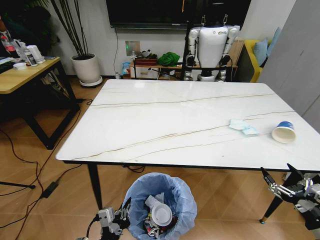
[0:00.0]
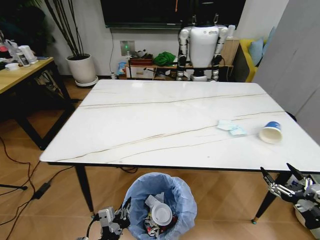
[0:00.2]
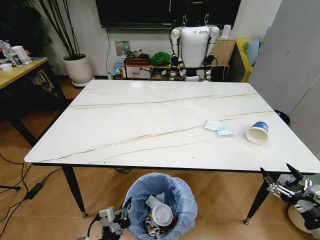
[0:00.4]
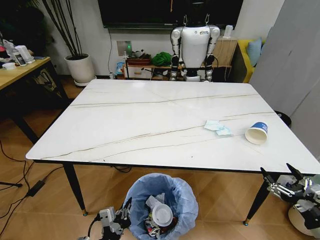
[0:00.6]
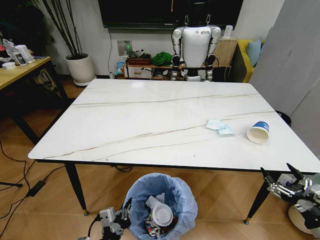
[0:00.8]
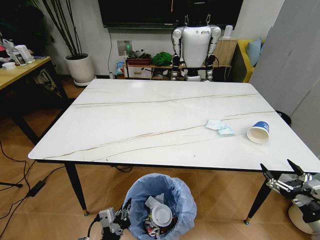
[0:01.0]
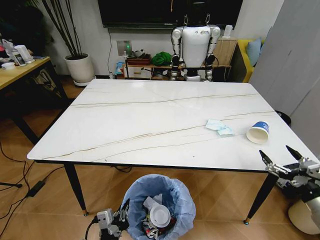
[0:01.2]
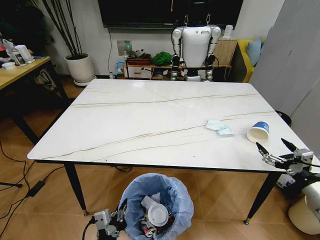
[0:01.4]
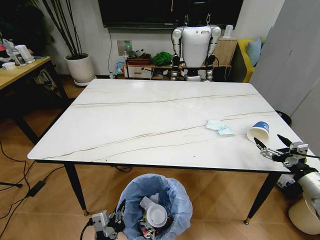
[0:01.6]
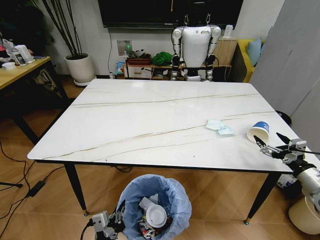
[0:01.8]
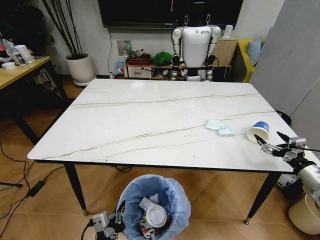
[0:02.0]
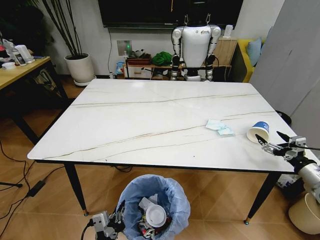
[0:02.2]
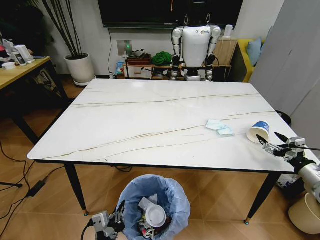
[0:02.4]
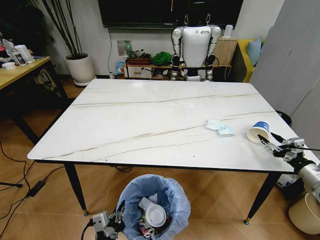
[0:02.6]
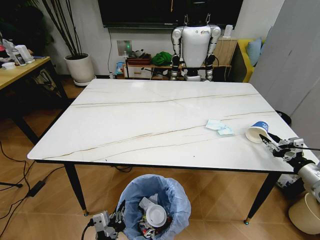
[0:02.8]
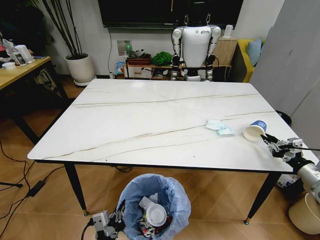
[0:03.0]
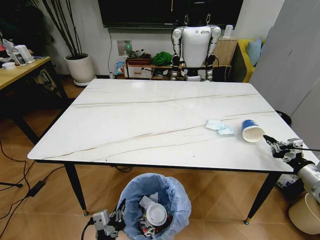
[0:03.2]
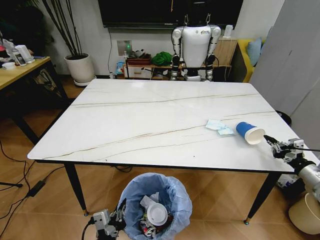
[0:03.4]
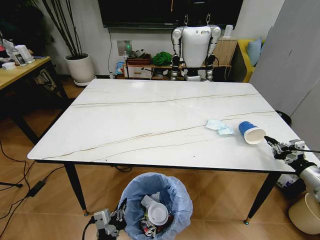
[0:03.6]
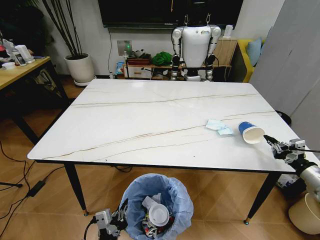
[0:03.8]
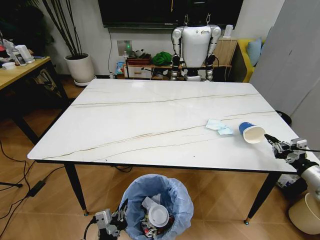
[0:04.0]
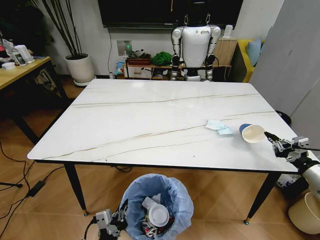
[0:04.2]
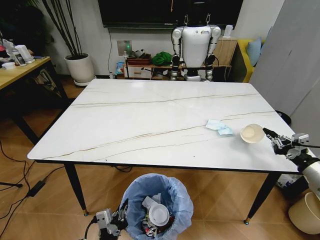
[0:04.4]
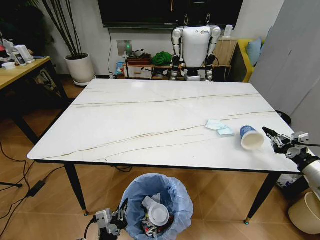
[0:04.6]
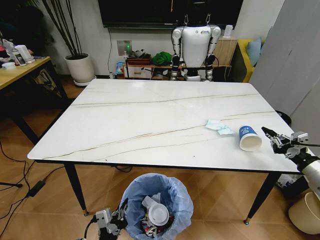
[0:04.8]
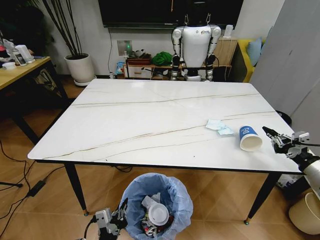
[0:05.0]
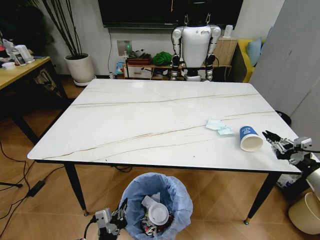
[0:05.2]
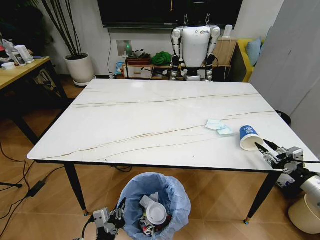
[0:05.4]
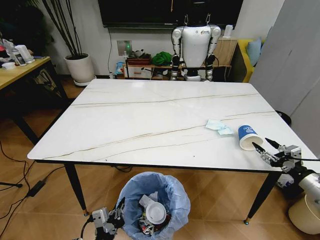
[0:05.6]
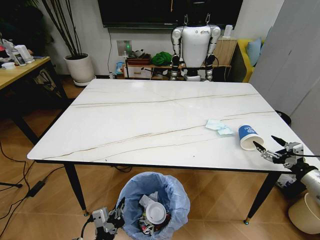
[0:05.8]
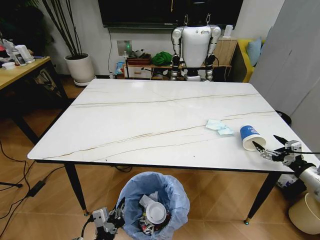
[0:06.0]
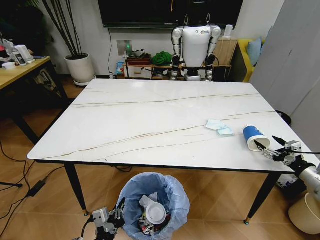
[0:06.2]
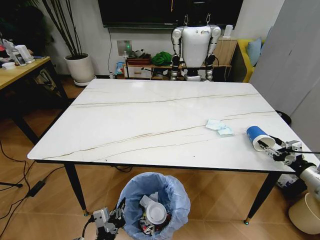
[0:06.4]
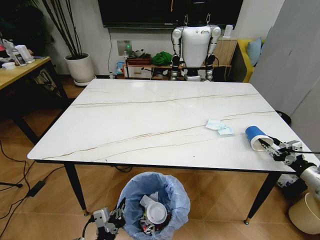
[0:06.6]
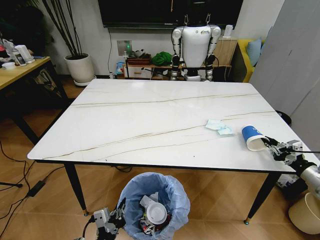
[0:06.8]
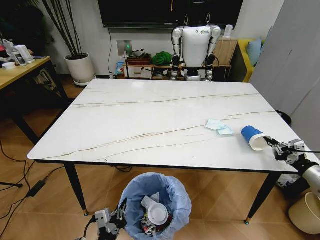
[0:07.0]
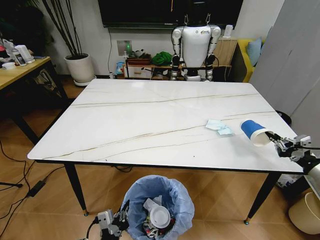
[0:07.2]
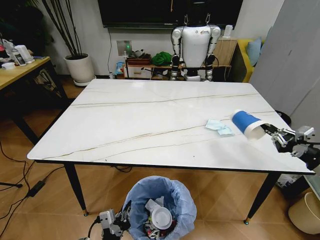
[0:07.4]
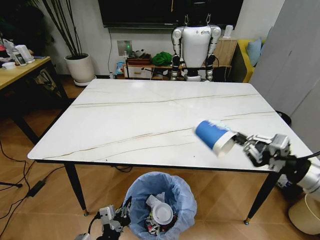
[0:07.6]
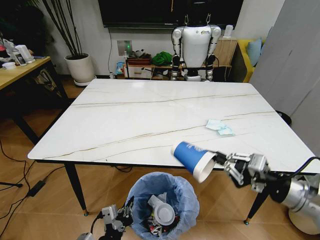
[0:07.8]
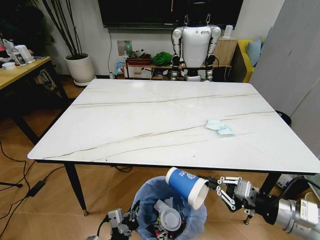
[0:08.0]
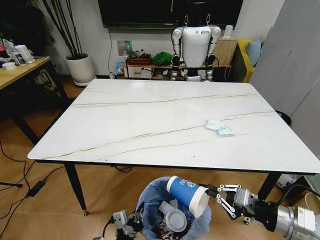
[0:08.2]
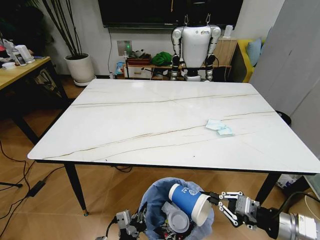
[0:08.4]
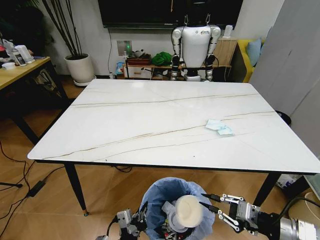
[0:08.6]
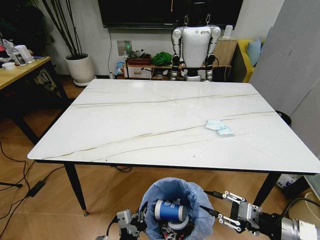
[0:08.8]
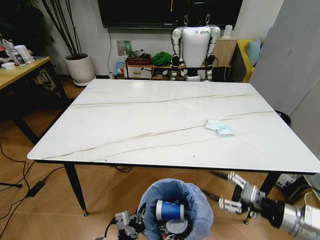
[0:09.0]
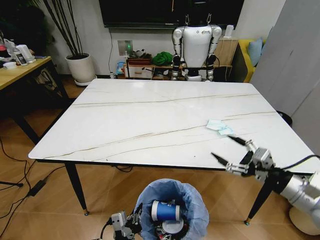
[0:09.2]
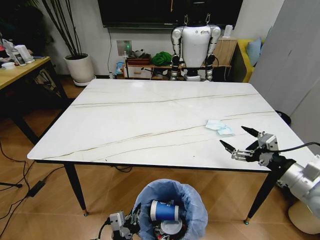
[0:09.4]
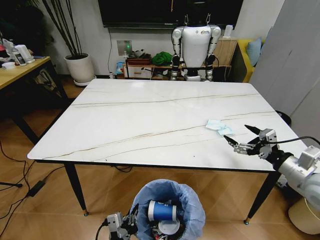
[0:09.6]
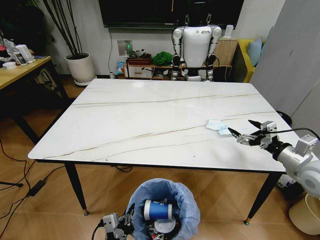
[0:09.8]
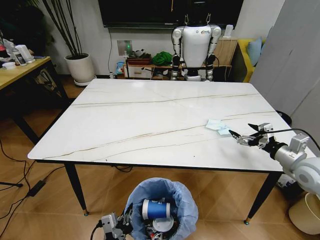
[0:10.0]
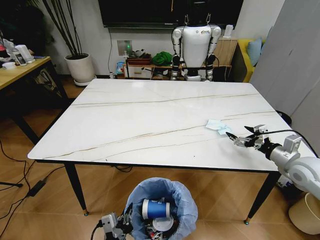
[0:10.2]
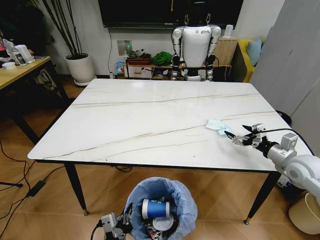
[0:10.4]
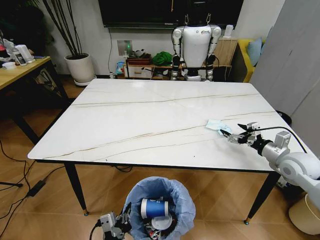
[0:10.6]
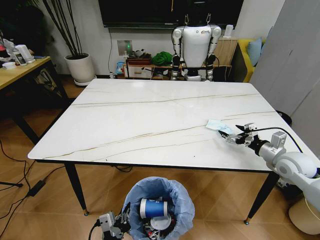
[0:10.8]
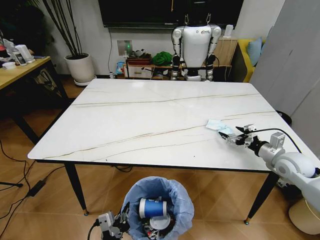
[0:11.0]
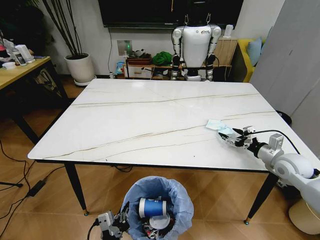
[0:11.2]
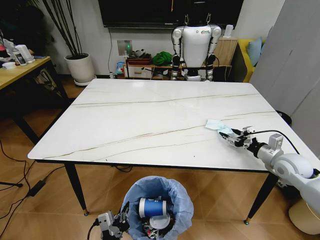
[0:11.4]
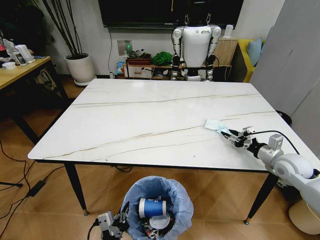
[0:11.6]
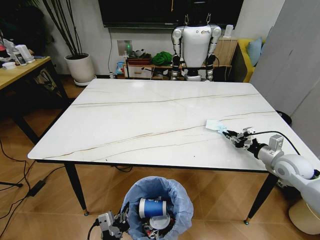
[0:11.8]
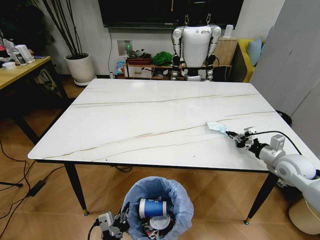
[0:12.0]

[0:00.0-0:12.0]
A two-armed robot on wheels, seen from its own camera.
Task of the whole recording: Pick up the trash bin and place the trash from the table into it.
0:00.0 to 0:01.6: The right gripper heads forward, covering some 15 cm.
0:01.6 to 0:03.0: The right gripper shifts by some 5 cm, and closes its fingers.
0:03.0 to 0:04.4: There are only small adjustments of the grippers.
0:04.4 to 0:06.0: The right gripper opens.
0:06.0 to 0:07.6: The right gripper is displaced upward and to the left by roughly 15 cm, and closes its fingers.
0:07.6 to 0:09.0: The right gripper travels downward and backward by some 10 cm, and opens up.
0:09.0 to 0:10.4: The right gripper is displaced forward and to the right by roughly 20 cm, and opens up.
0:10.4 to 0:12.0: The right gripper closes.

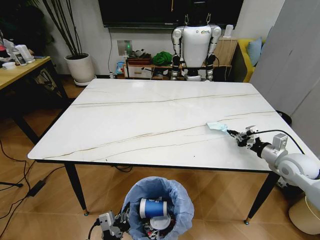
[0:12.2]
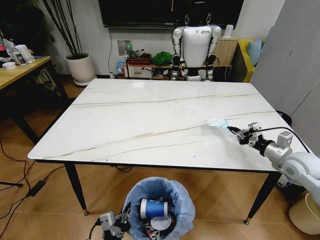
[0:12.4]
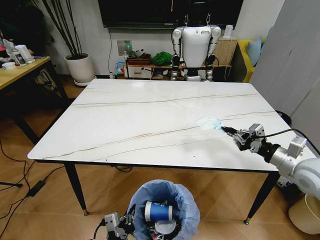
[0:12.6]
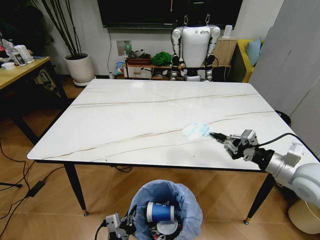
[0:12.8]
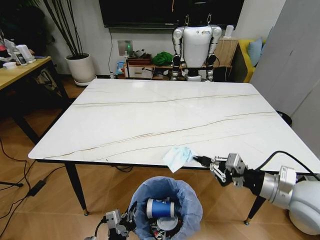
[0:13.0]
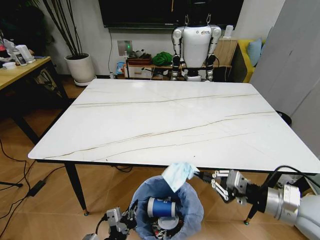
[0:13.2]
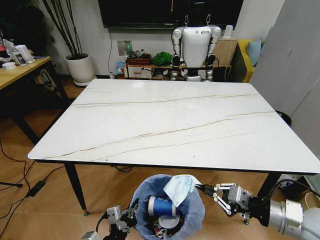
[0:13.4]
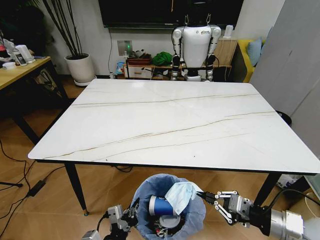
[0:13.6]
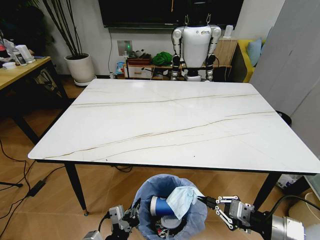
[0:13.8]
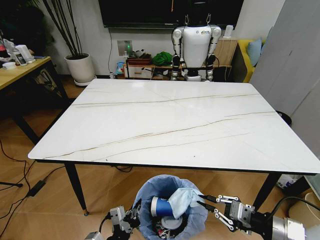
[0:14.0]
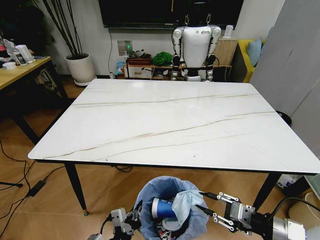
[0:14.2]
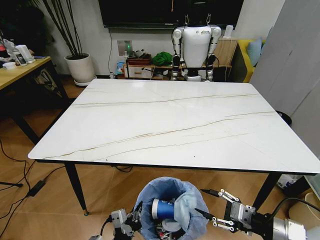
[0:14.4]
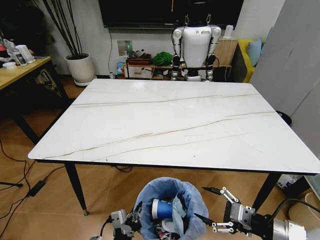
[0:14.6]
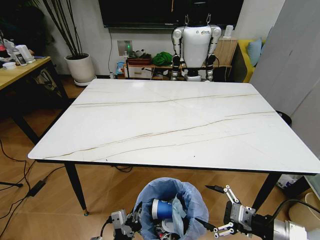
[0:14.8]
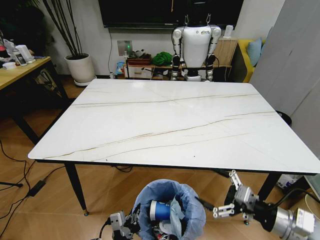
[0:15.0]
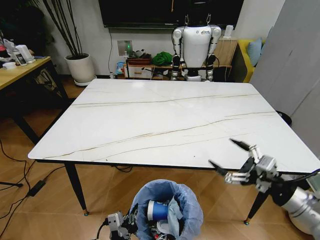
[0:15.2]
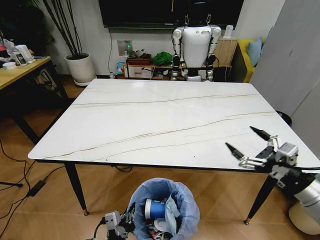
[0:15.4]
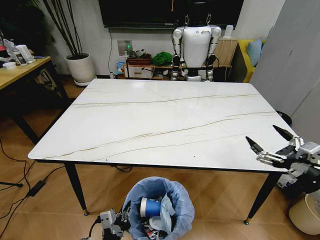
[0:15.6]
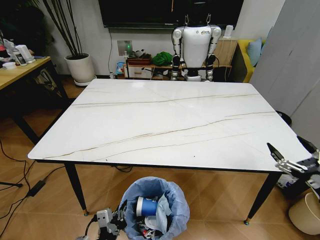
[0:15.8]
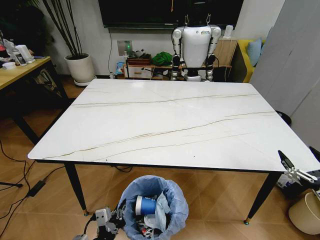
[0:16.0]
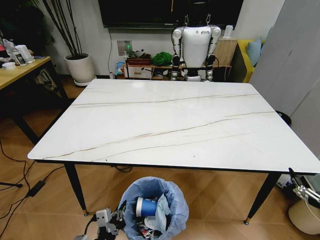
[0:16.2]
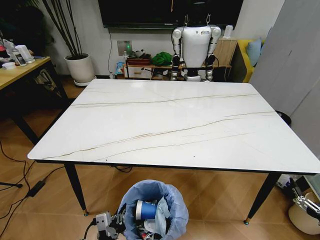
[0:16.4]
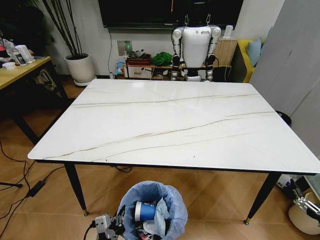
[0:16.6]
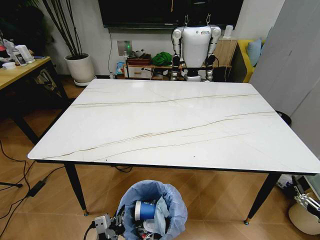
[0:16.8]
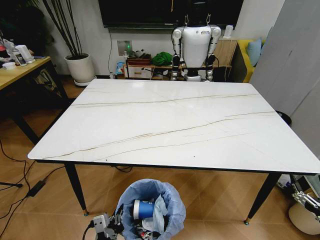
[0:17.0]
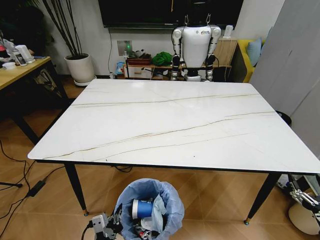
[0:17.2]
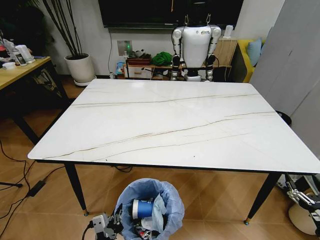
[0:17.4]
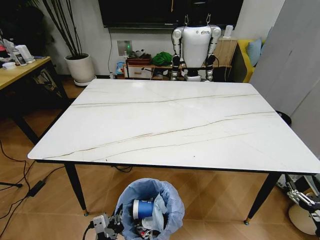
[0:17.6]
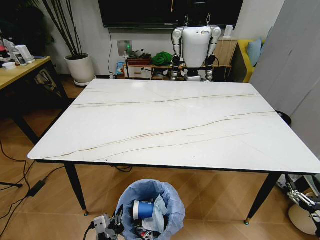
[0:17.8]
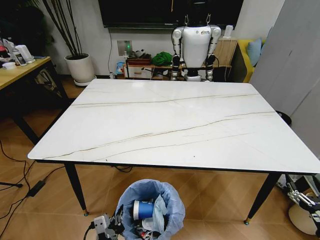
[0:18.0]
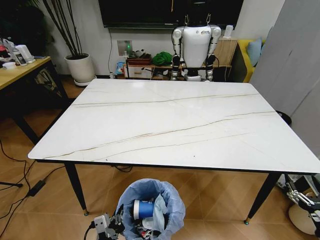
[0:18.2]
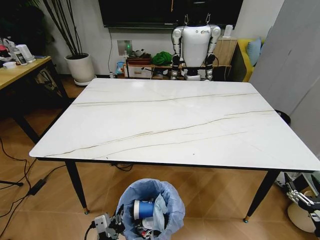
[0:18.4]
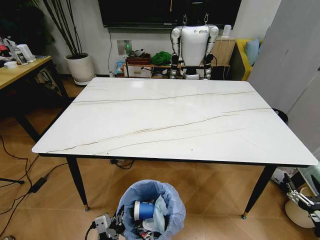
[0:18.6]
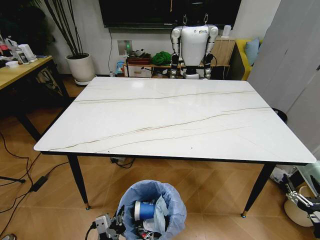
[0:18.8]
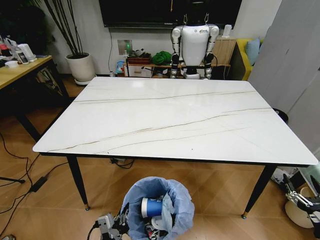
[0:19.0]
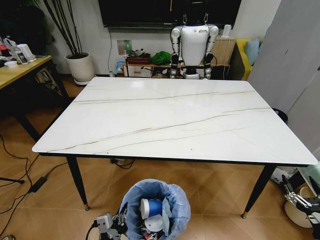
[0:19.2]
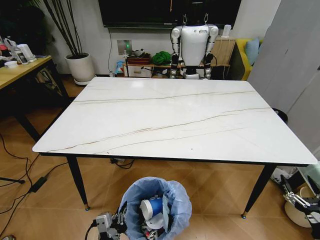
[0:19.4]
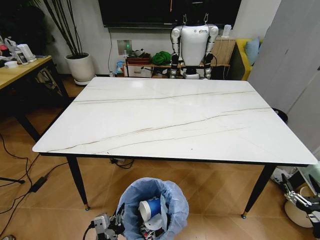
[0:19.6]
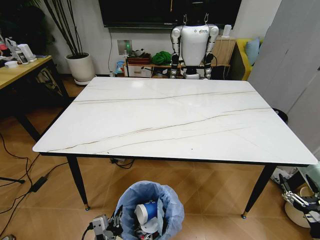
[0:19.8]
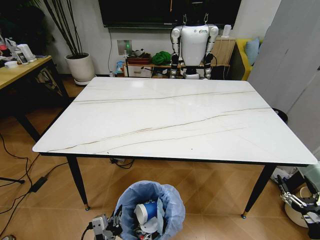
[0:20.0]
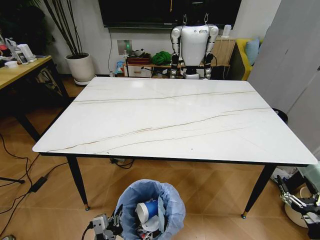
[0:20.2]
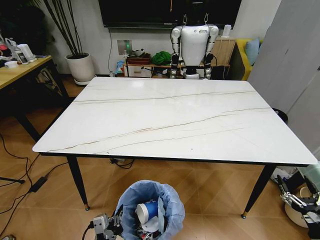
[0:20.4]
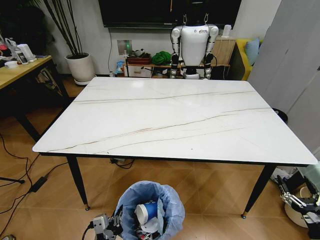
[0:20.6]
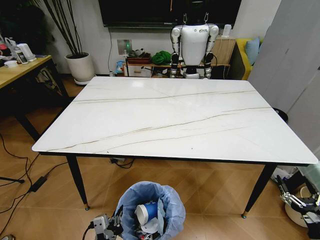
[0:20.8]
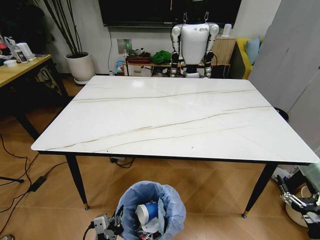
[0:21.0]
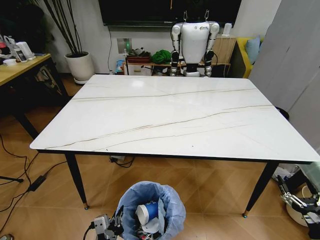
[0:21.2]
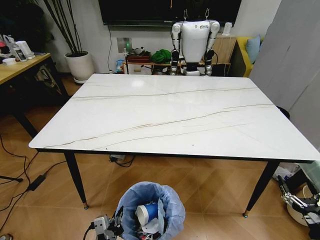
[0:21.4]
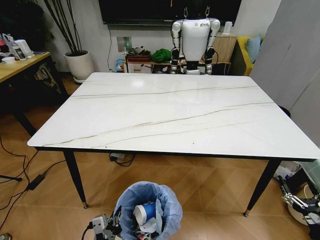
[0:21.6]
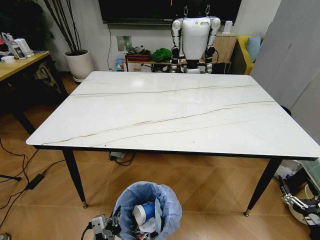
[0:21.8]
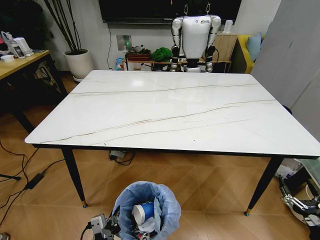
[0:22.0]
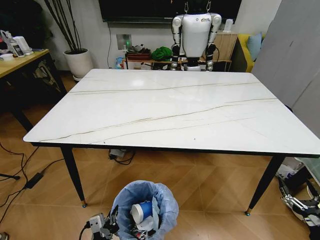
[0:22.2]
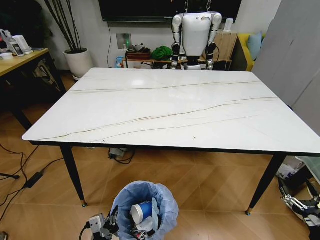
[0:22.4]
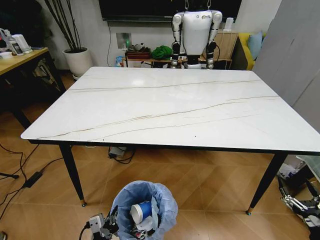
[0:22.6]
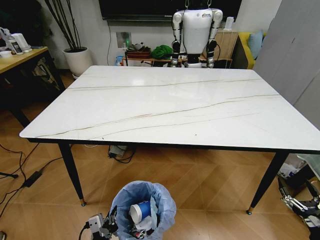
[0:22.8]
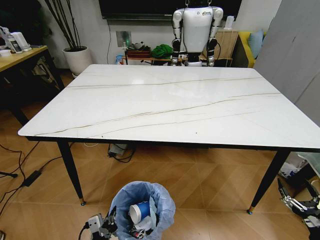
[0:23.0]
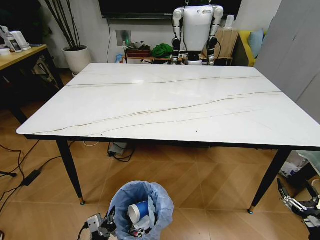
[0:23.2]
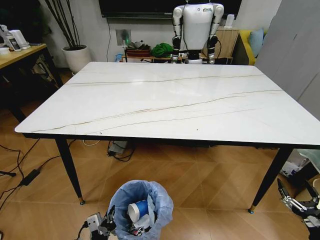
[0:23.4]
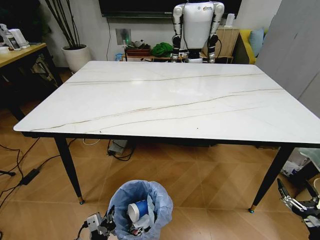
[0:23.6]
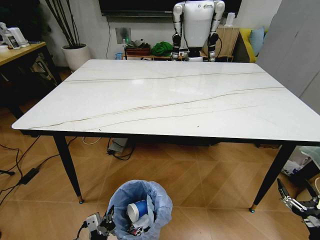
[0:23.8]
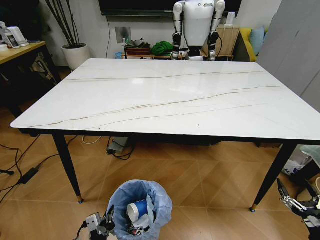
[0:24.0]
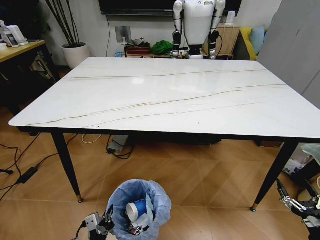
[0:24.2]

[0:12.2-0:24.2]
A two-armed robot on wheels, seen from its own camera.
Task of the whole recording: Pick up the trash bin and place the trash from the table into it.
0:12.2 to 0:13.8: The right gripper shifts roughly 25 cm backward and to the left.
0:13.8 to 0:15.2: The right gripper opens.
0:15.2 to 0:16.6: The right gripper moves to the right, downward and backward, approximately 20 cm.
0:16.6 to 0:19.8: There are only small adjustments of the grippers.
0:19.8 to 0:21.2: Both grippers stay put.
